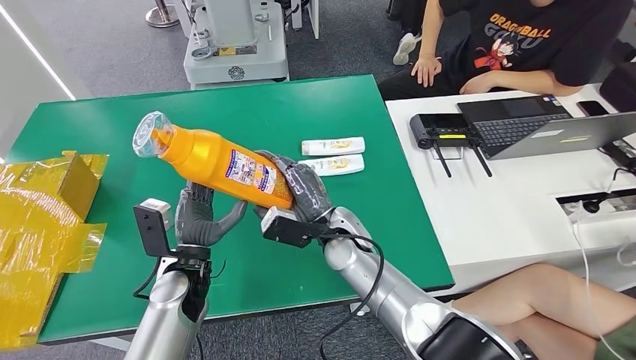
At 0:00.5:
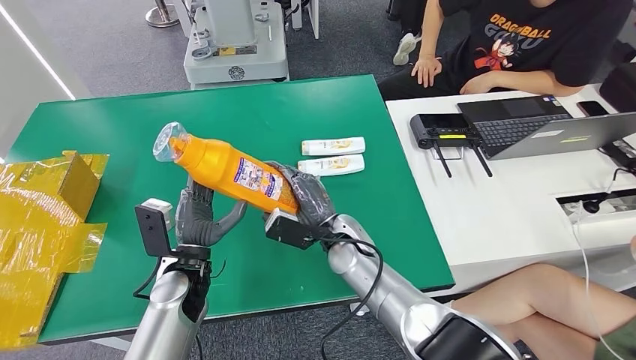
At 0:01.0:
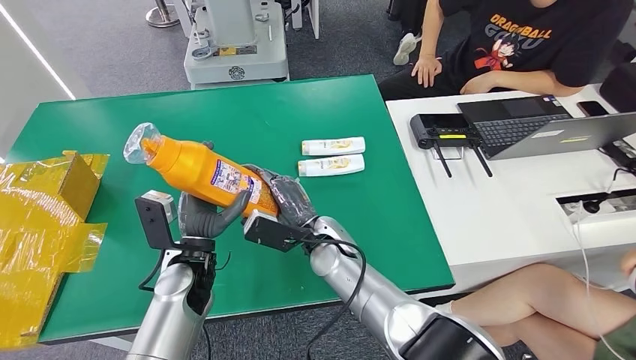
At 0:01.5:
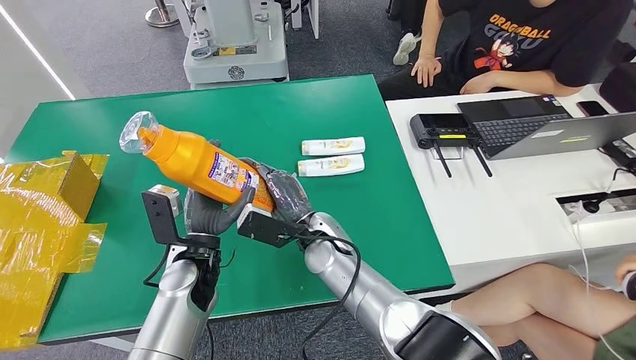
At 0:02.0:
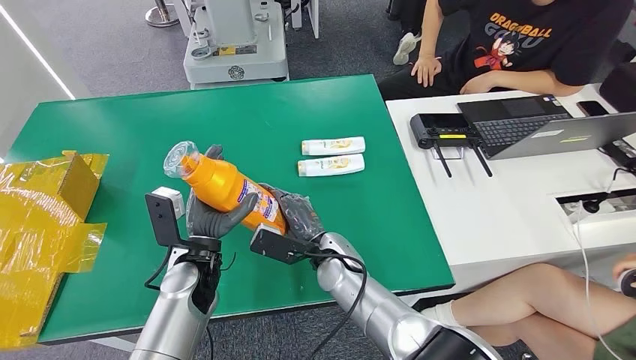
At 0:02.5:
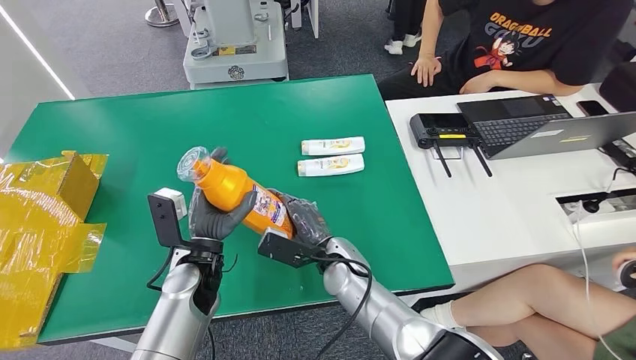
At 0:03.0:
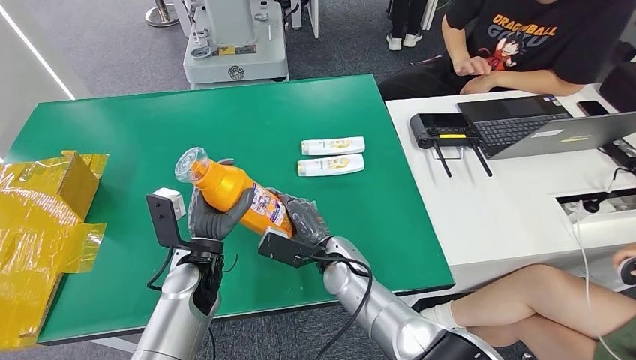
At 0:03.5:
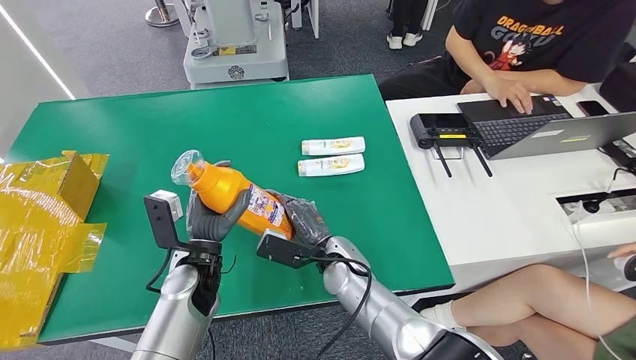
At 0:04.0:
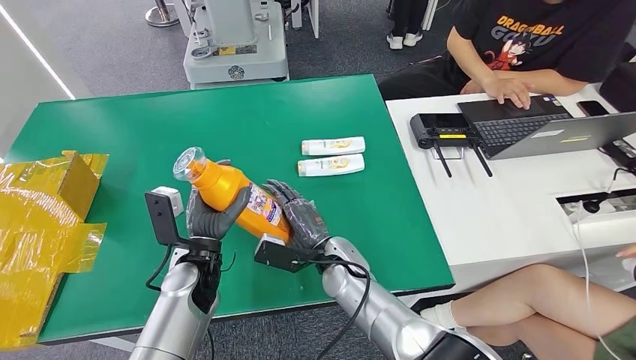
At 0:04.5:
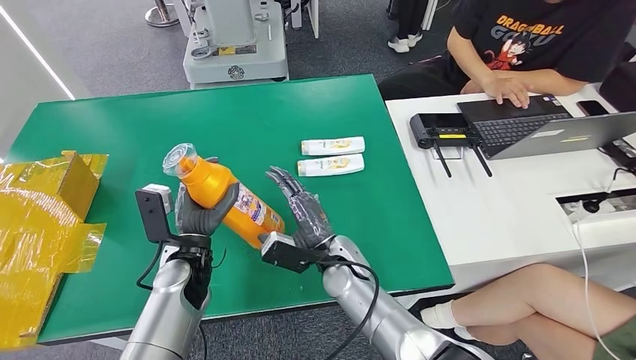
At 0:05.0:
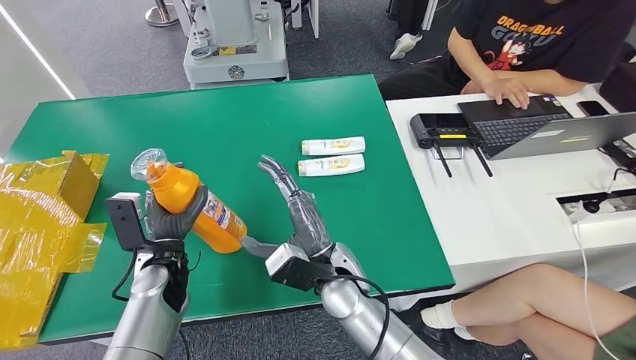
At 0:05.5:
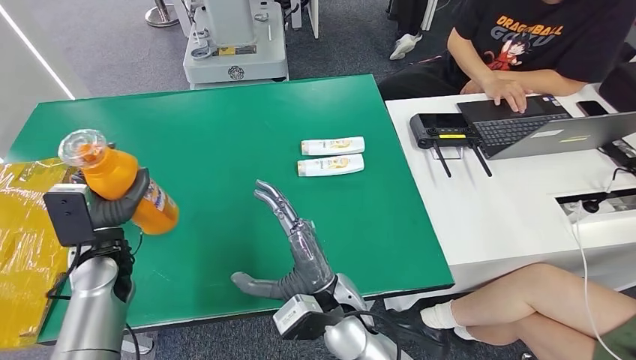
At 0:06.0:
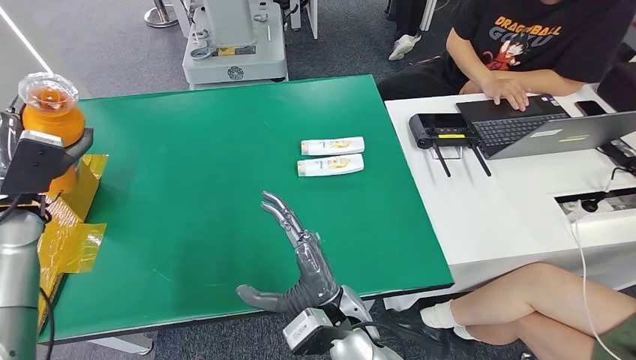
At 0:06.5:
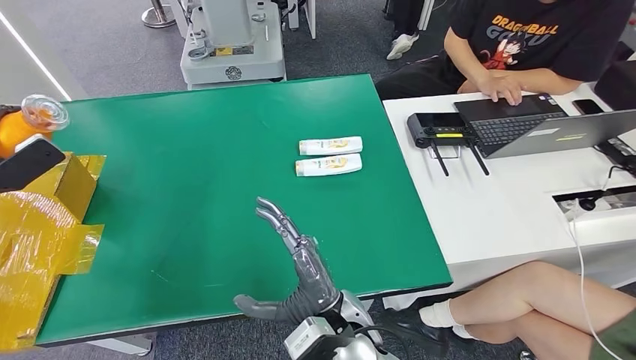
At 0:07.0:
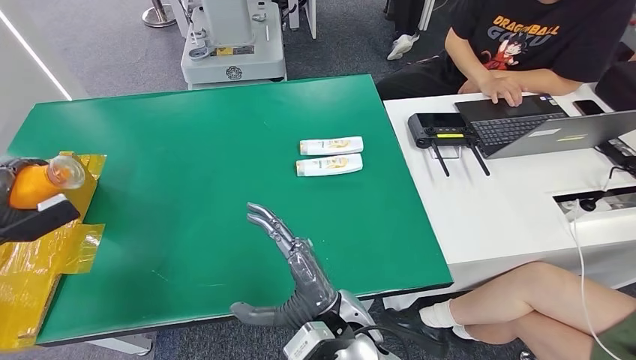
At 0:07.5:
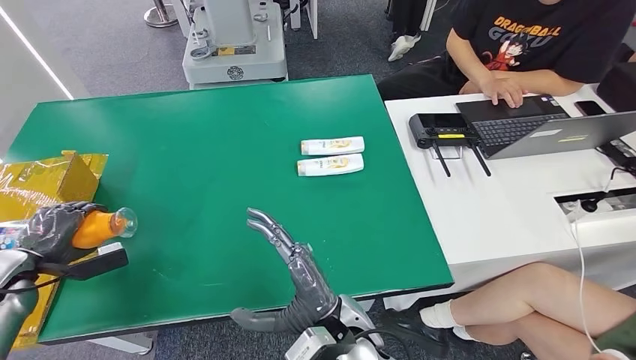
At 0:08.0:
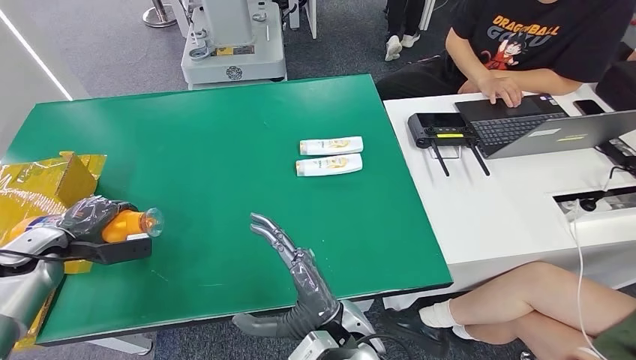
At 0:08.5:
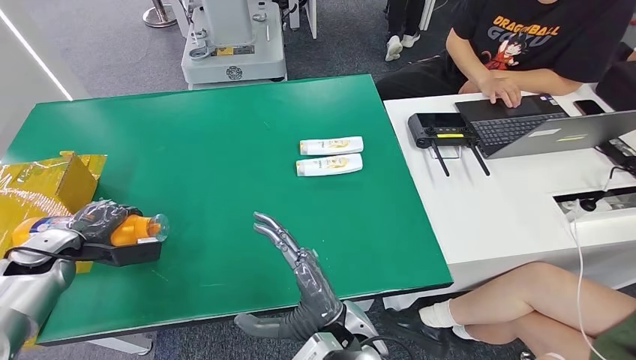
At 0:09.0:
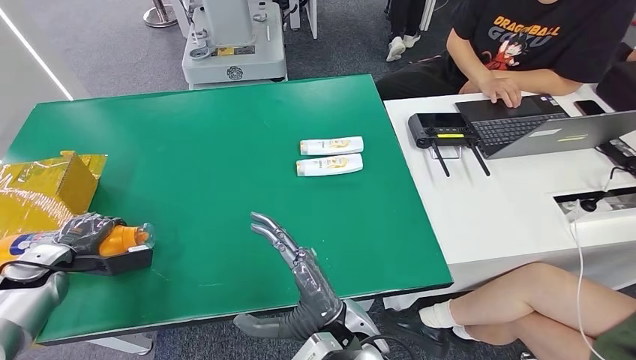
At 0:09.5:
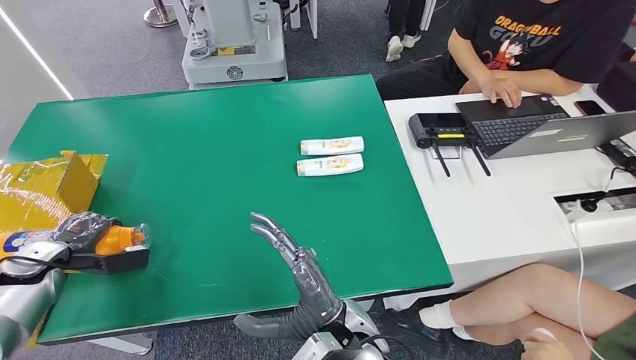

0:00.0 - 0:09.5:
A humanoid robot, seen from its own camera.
0:00.0 - 0:02.0: The right hand moves approximately 5 cm.
0:02.0 - 0:04.0: The hands make only small movements.
0:04.0 - 0:05.5: The left hand travels to the left by about 15 cm, while the right hand heads backward and upward, covering about 10 cm.
0:05.5 - 0:07.5: The left hand shifts roughly 20 cm to the left.

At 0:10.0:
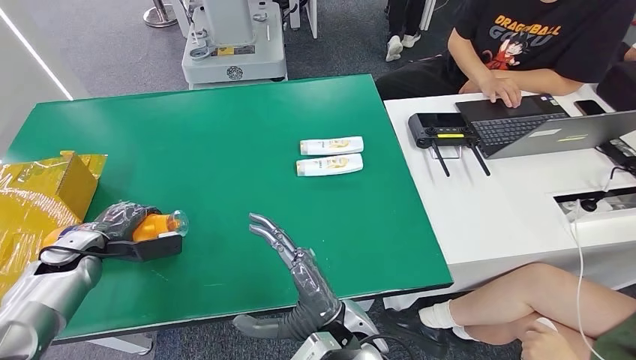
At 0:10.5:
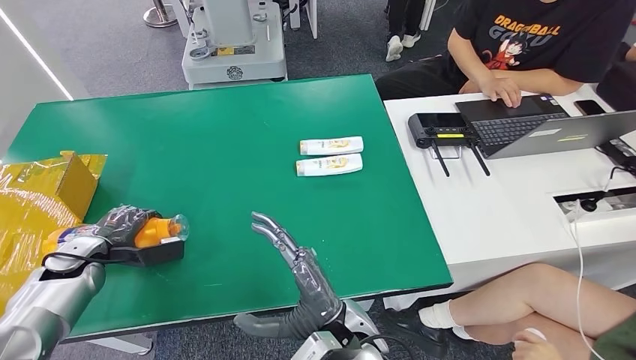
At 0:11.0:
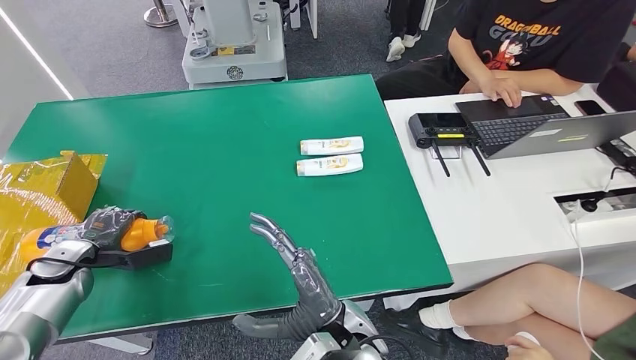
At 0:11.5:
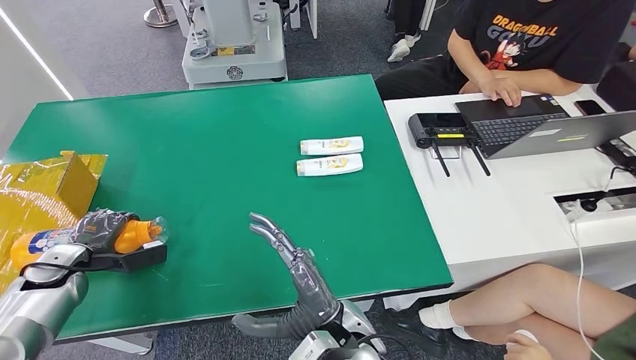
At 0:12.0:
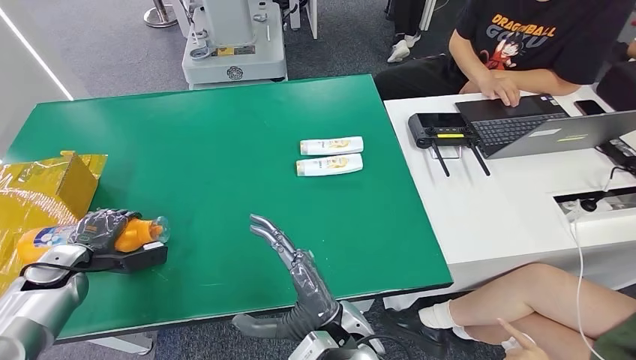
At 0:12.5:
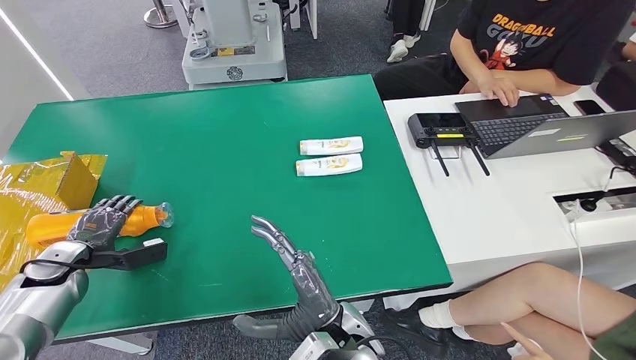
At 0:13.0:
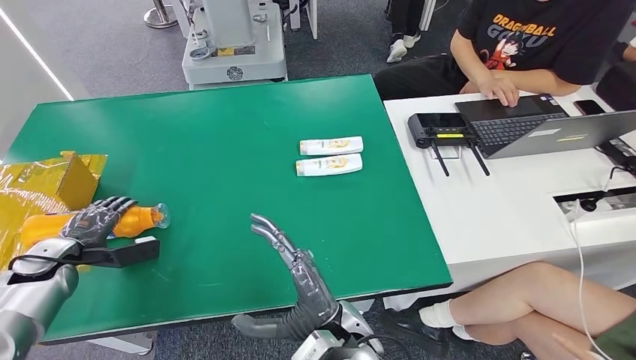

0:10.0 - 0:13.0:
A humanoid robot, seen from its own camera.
Step, 0:10.0 - 0:13.0: Turn the bottle to the front side.
0:10.0 - 0:13.0: The hands move only a little.

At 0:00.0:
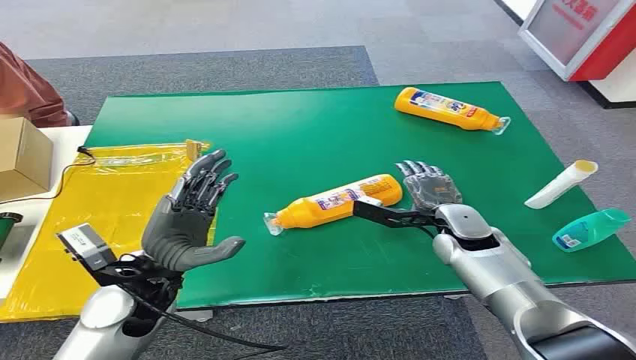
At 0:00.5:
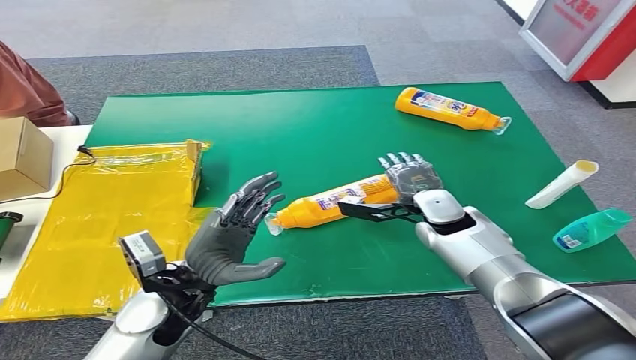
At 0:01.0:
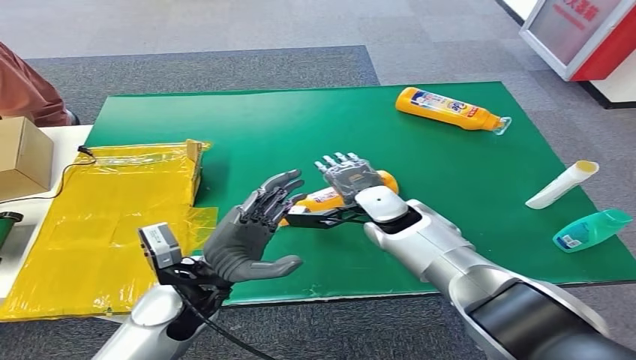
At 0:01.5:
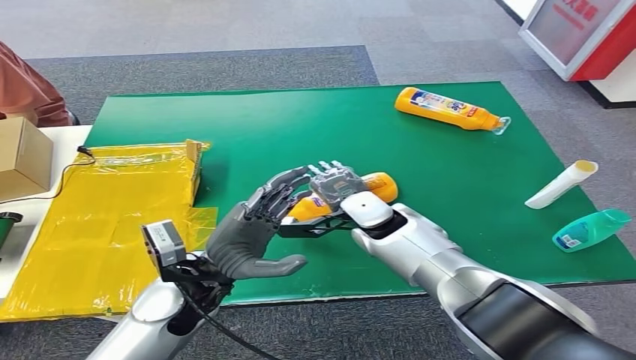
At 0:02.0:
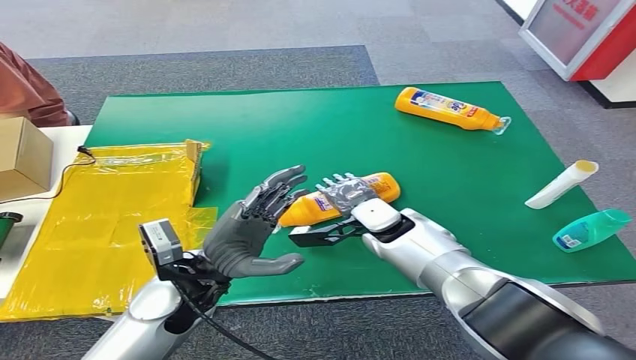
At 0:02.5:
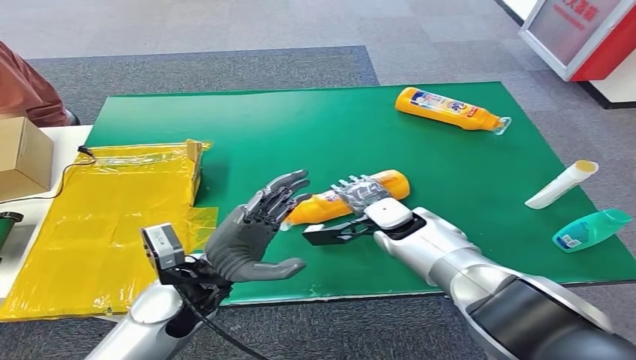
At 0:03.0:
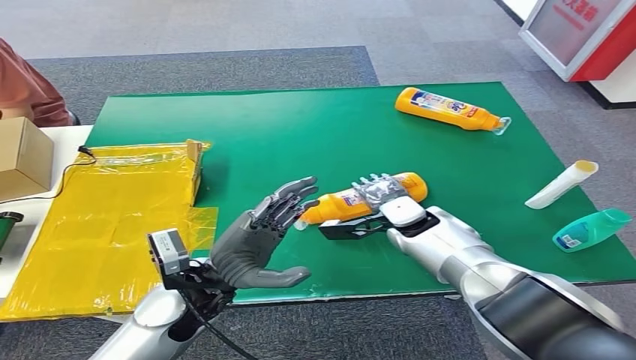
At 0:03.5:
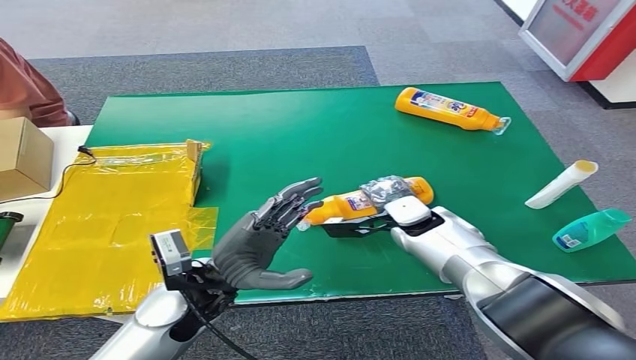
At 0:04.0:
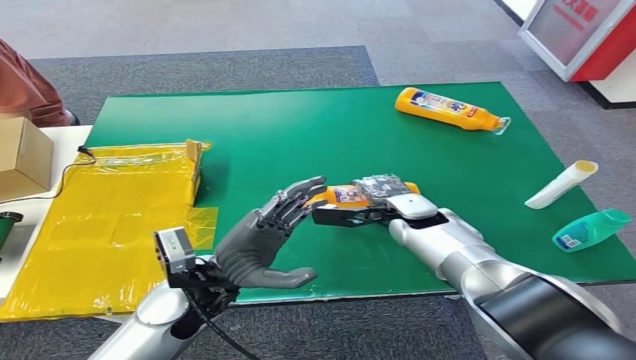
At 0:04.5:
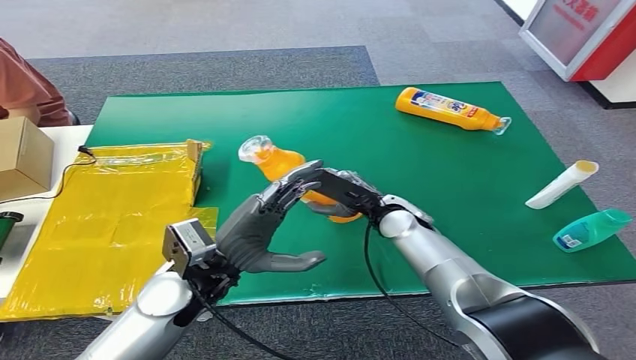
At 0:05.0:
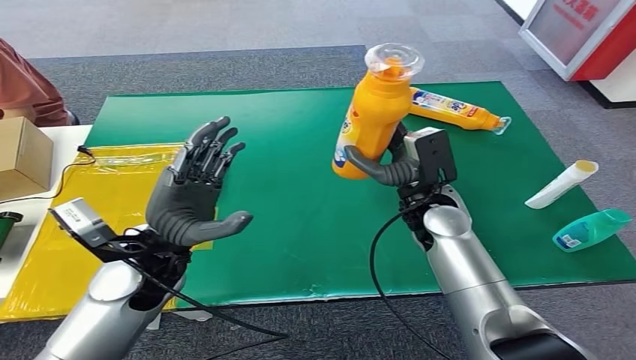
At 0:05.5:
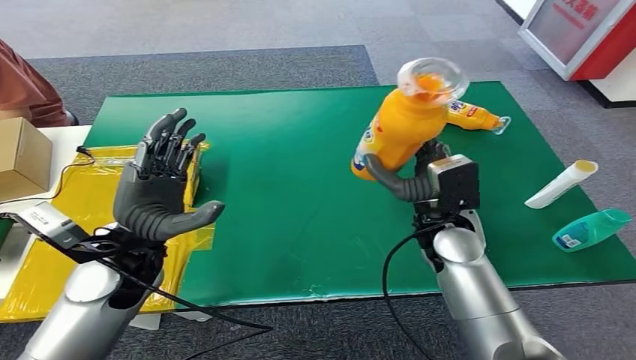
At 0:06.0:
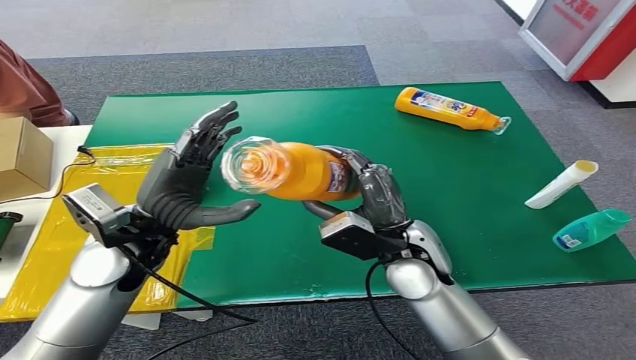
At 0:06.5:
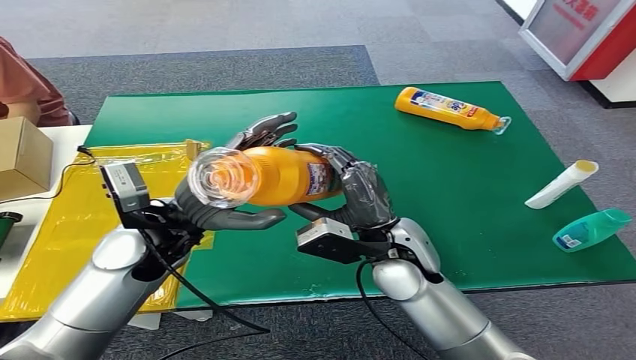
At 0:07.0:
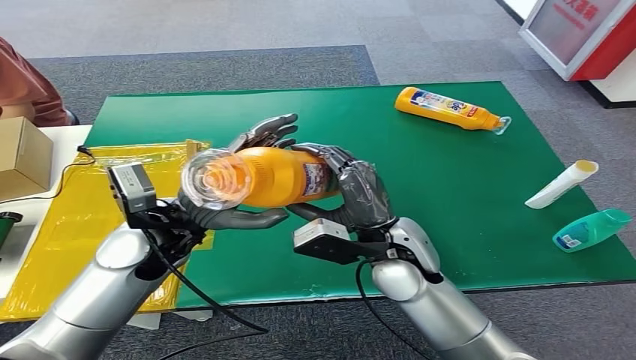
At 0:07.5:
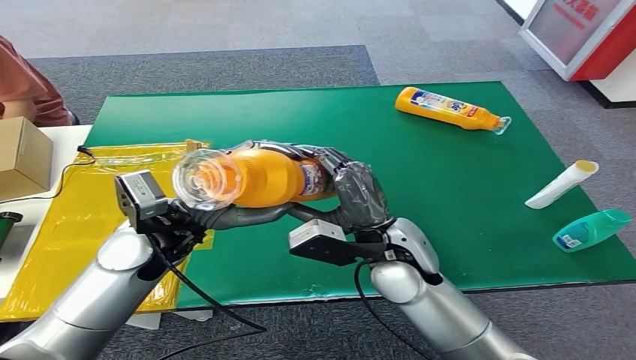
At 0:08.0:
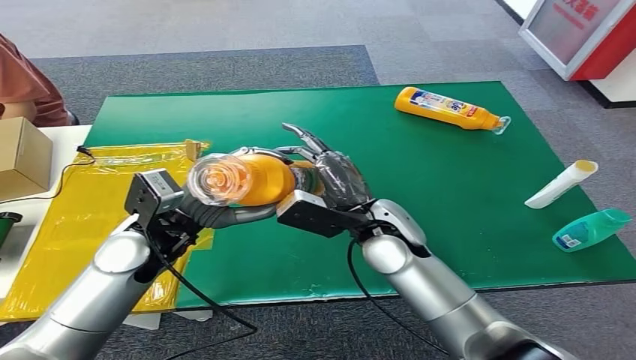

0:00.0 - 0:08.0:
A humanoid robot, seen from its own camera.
Step, 0:00.0 - 0:04.5: Pick up the bottle from the table.
